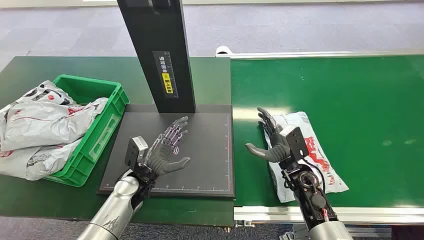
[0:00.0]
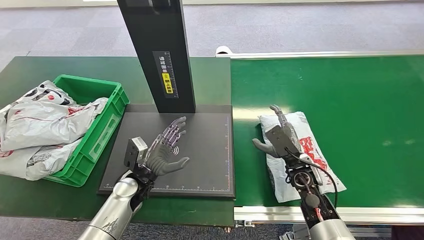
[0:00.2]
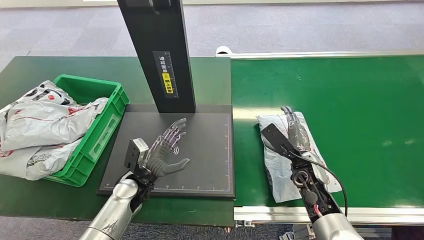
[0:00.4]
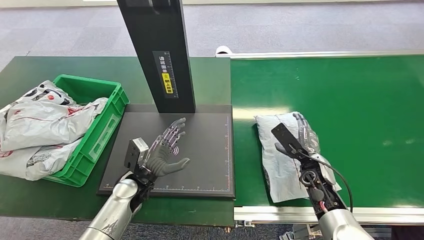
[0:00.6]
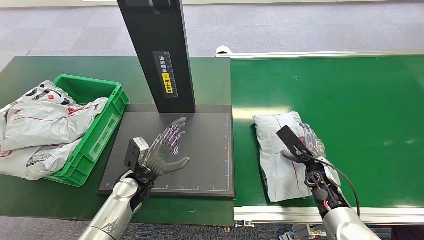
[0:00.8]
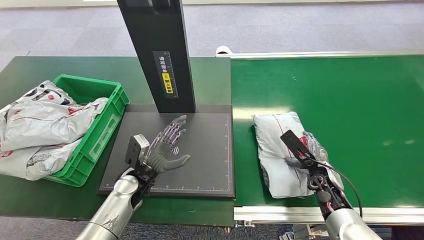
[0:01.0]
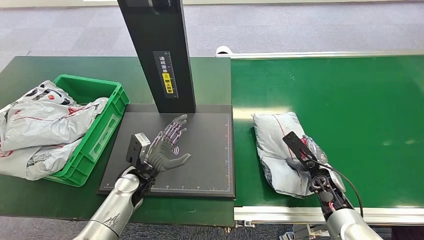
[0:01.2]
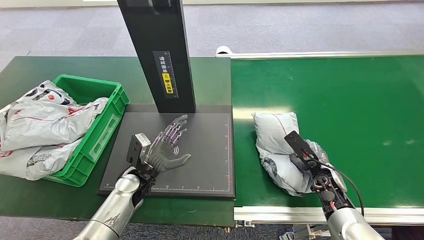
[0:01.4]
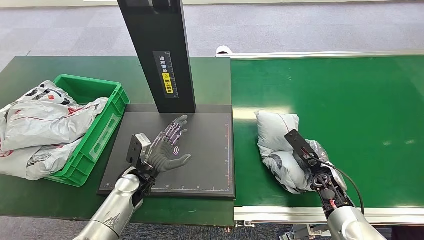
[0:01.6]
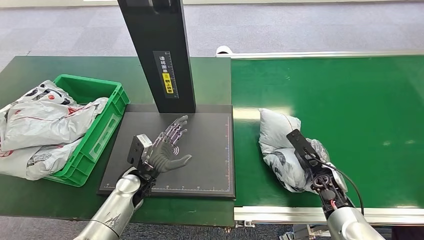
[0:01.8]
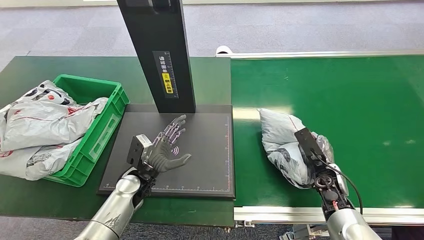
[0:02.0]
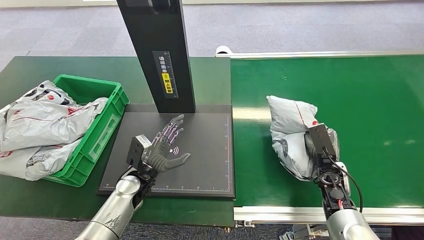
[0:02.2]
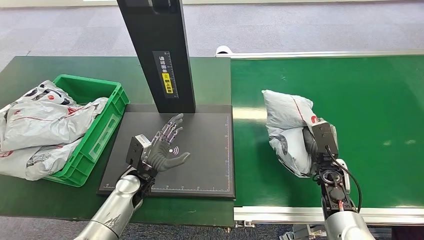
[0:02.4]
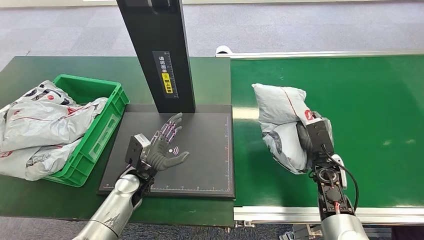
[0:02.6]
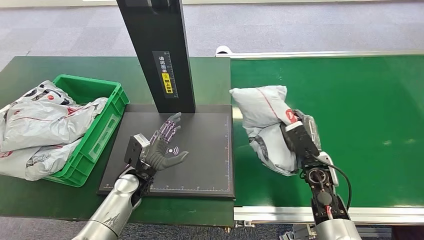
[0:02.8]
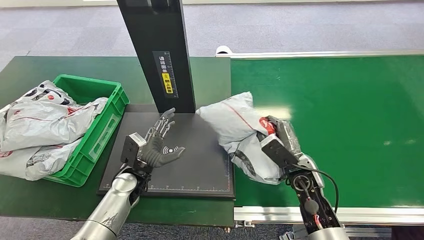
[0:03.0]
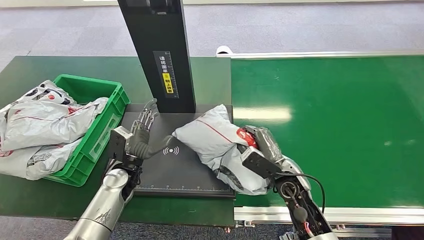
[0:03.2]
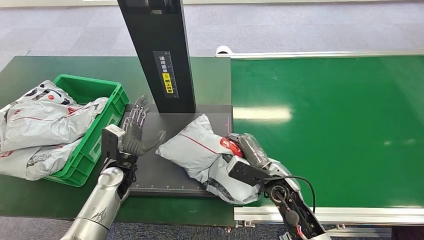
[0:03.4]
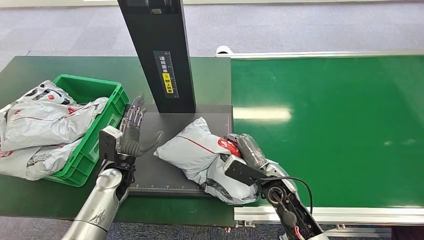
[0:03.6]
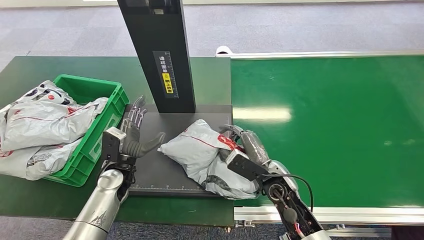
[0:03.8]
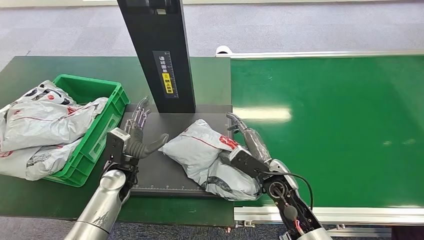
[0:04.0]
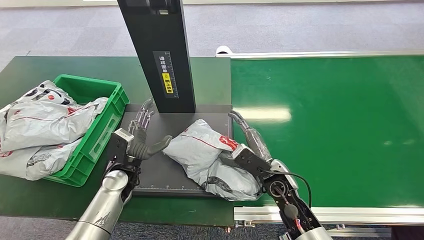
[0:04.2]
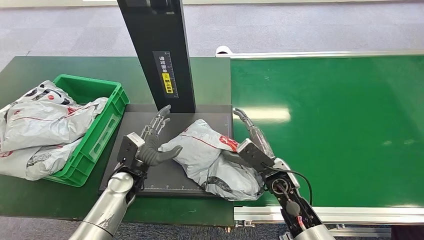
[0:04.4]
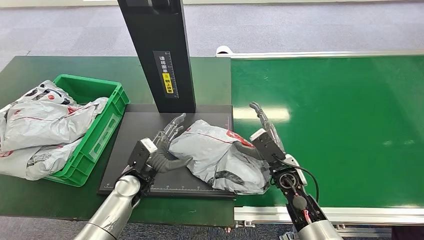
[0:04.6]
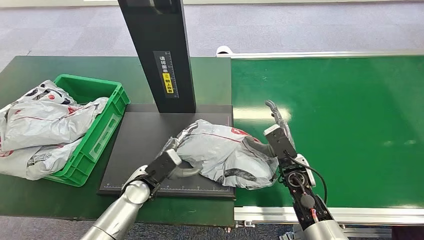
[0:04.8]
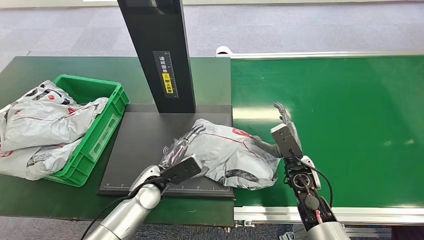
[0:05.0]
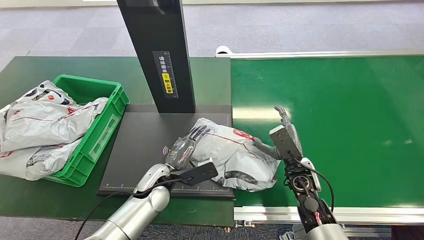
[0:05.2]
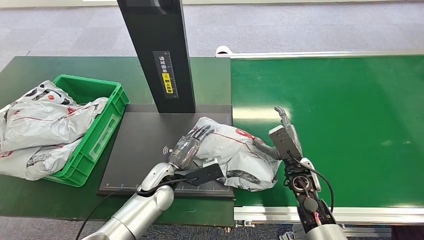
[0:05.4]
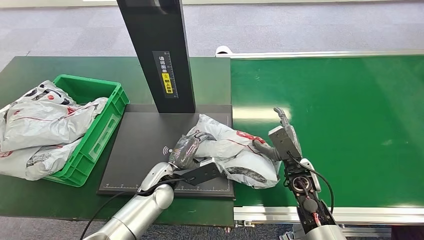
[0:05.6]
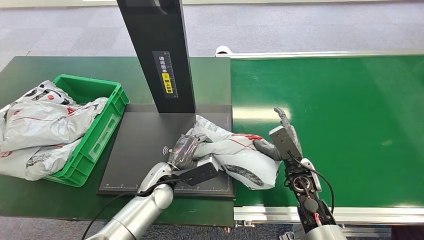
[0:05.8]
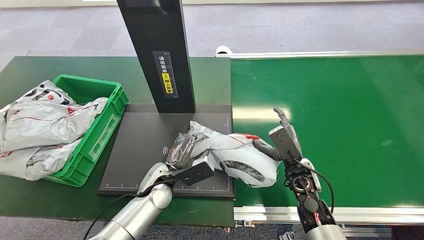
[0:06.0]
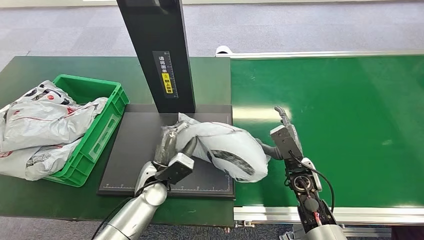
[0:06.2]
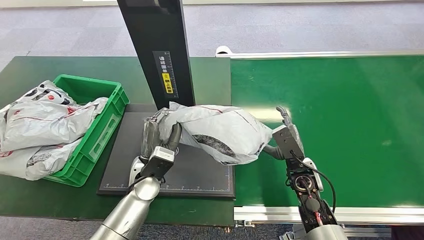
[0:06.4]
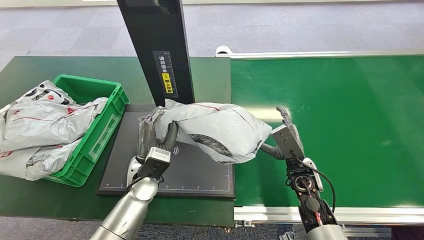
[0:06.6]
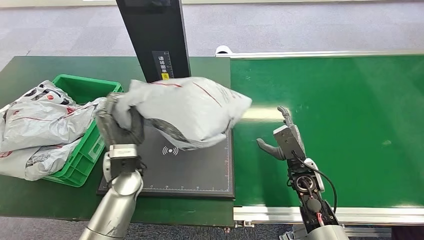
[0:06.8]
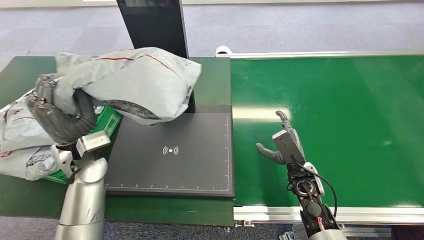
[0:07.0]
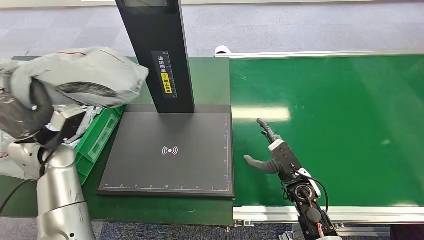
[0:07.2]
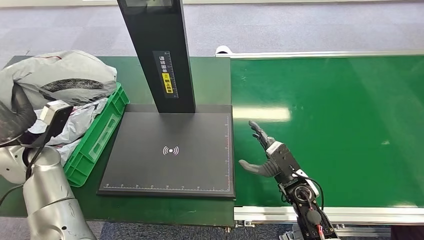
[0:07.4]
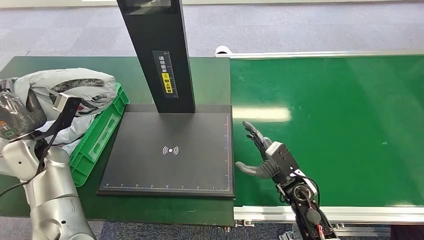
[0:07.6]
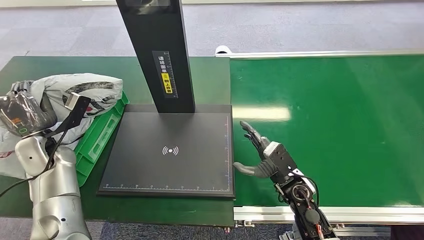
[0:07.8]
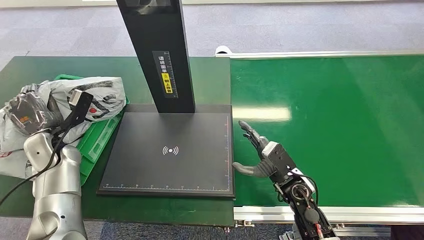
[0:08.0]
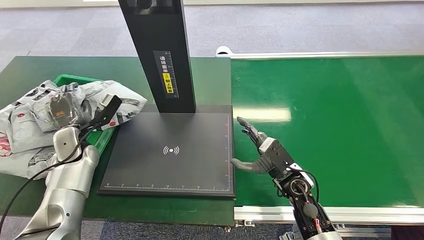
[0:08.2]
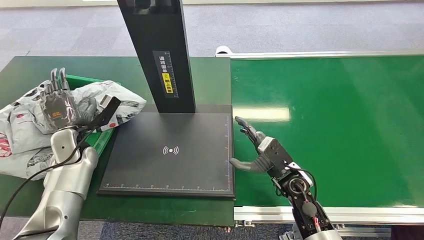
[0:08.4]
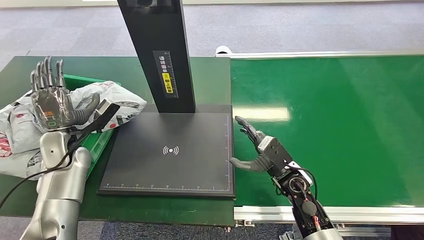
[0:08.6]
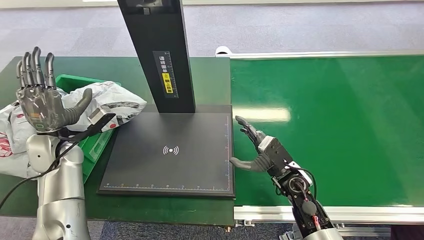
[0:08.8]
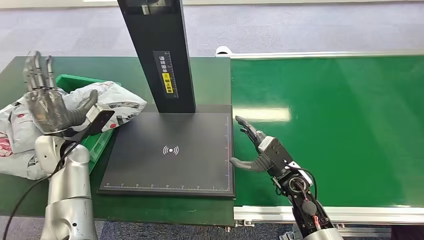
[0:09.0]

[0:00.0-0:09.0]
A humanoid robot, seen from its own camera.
Step, 0:00.0 to 0:02.8: Pick up the package from the conveyor belt.
Step, 0:03.0 to 0:04.0: Place the package onto the inbound machine.
Step, 0:04.4 to 0:06.8: Pick up the package from the inbound machine.
Step, 0:07.0 to 0:08.8: Place the package into the parcel locker.
0:01.6 to 0:03.0: The right hand is displaced to the left and upward by approximately 10 cm.
0:03.0 to 0:04.4: The right hand heads to the left, covering approximately 5 cm.
0:04.4 to 0:06.0: Both hands travel together to the right, some 5 cm.
0:07.6 to 0:09.0: The left hand changes place by approximately 5 cm.
